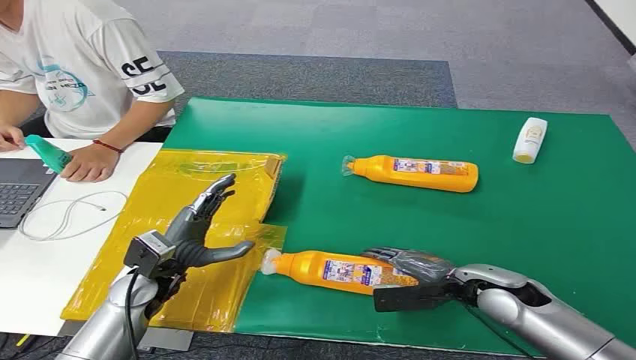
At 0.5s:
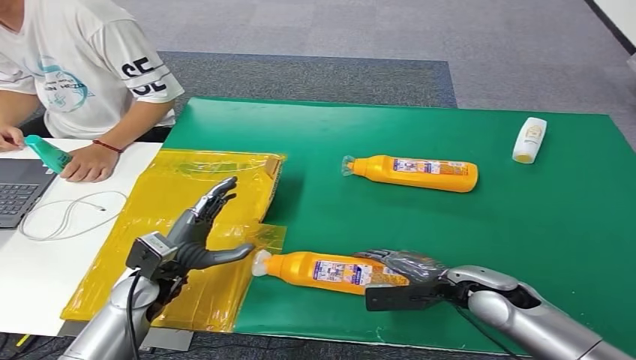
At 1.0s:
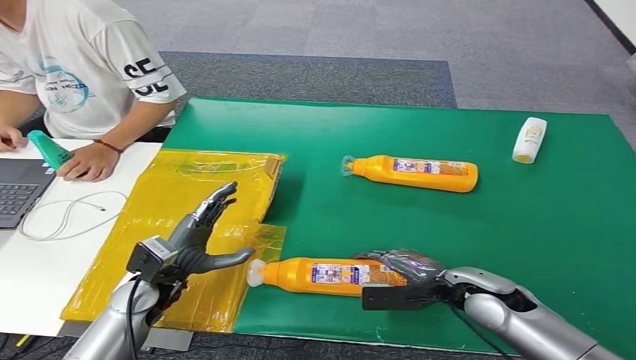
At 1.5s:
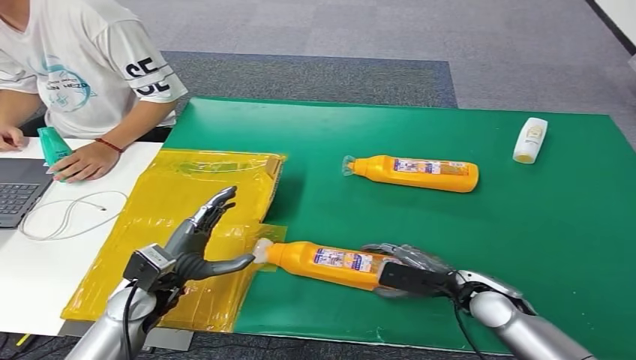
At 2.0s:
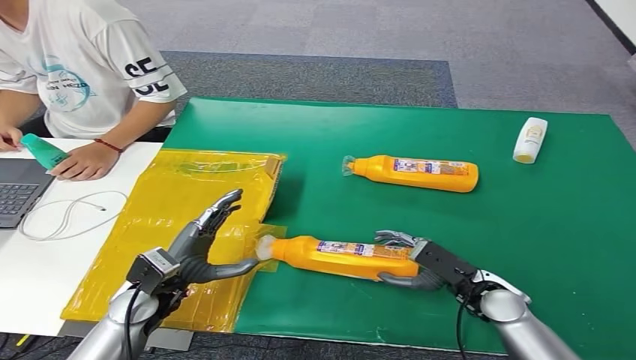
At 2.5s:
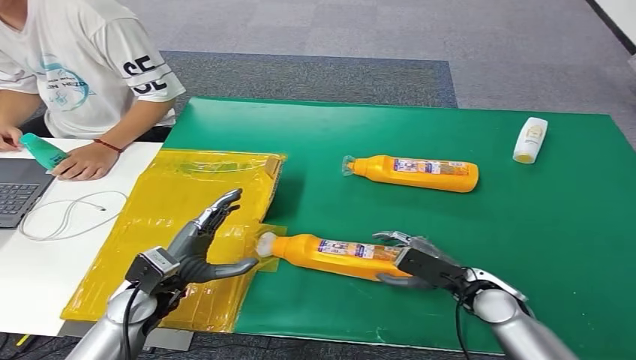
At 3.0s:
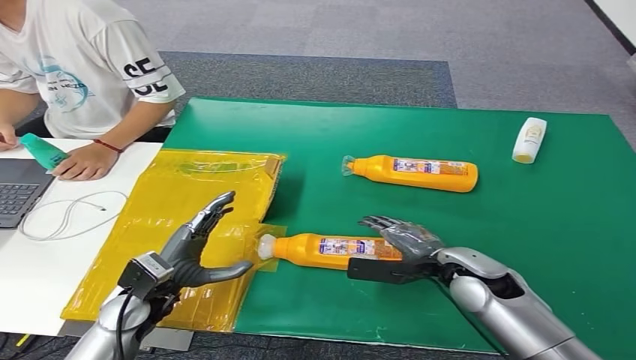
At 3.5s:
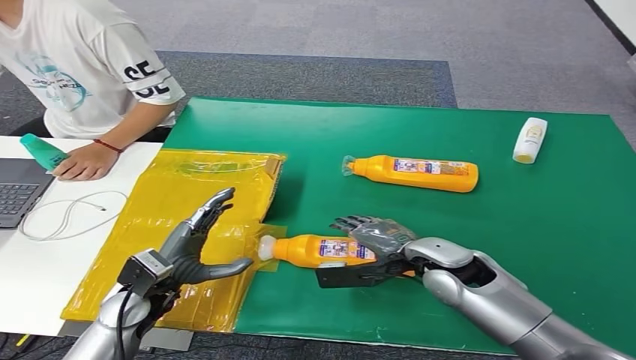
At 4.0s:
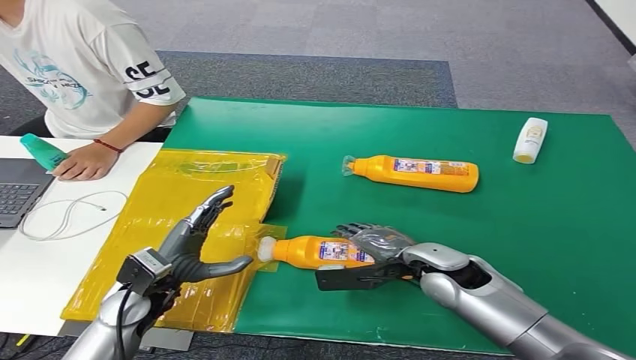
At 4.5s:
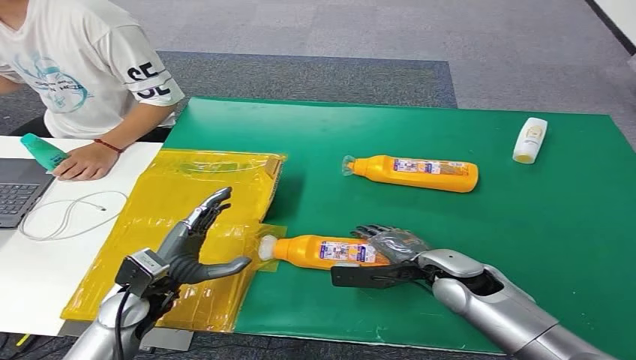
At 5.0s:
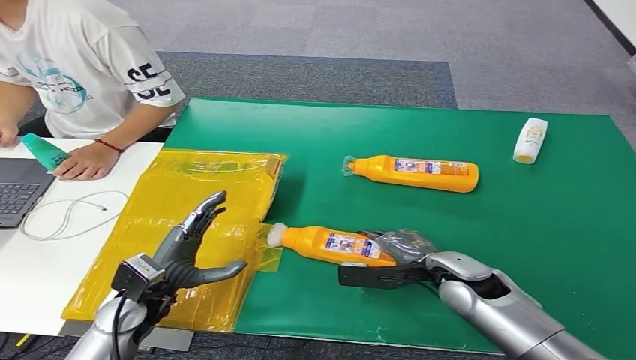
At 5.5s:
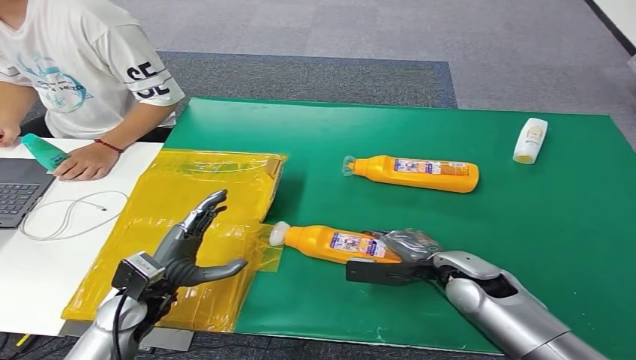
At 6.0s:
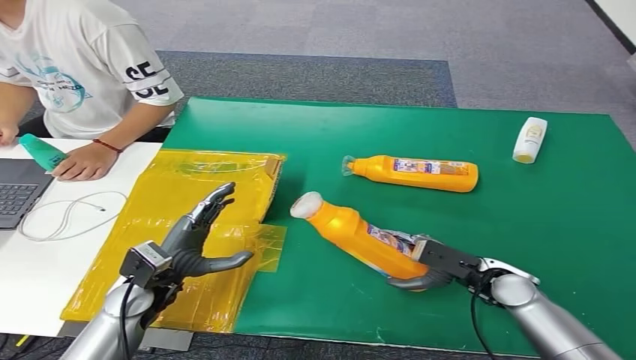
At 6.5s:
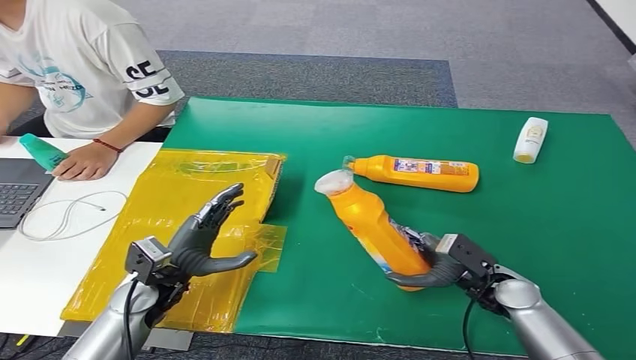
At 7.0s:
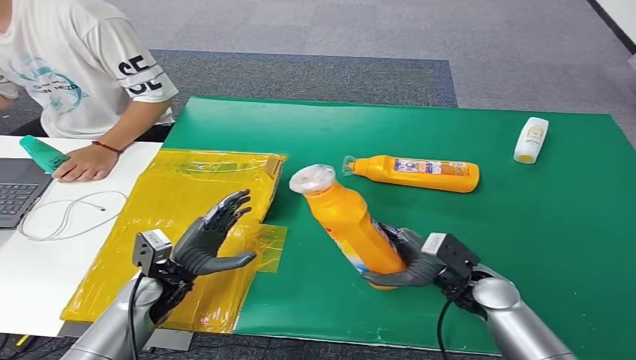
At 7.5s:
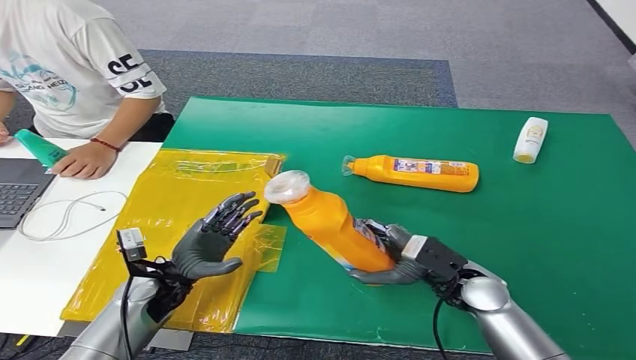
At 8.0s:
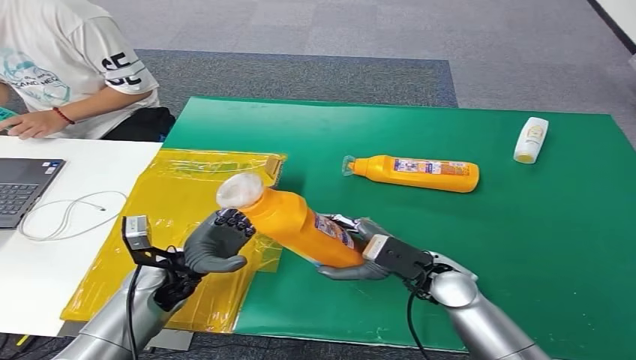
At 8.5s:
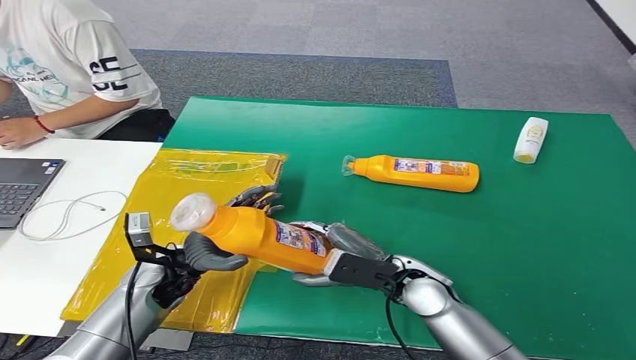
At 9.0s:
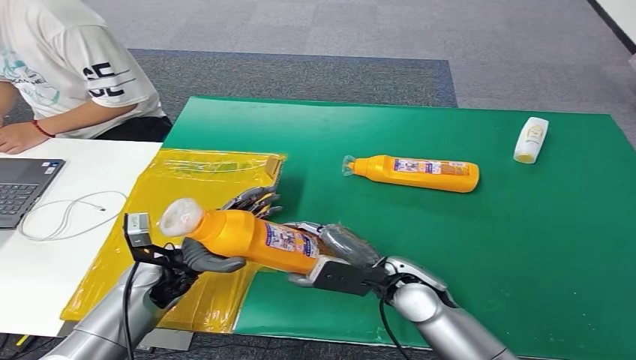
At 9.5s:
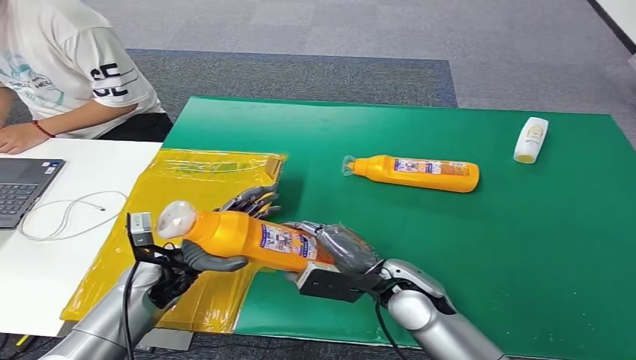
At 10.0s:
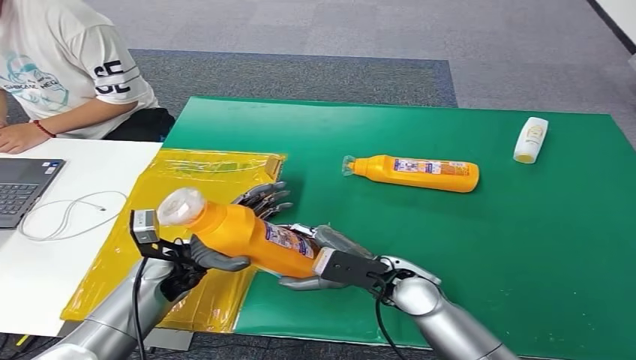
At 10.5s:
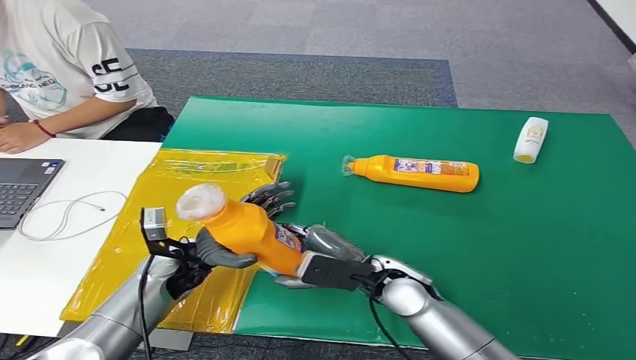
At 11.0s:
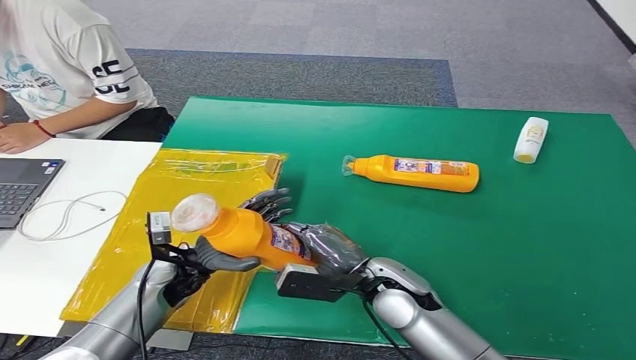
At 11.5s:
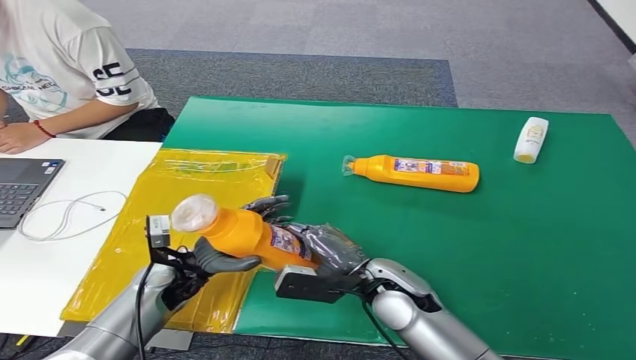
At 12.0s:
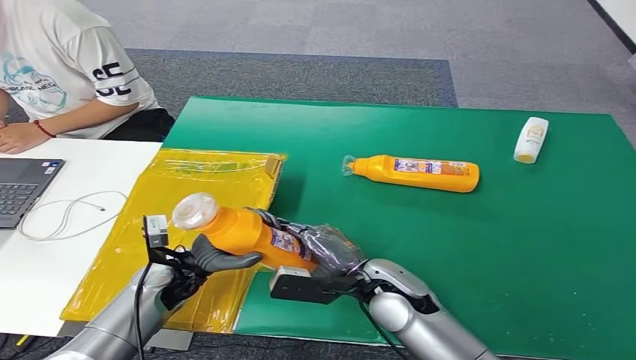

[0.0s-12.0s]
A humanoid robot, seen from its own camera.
Step, 0.0s to 7.5s: Pick up the bottle from the table.
2.0s to 4.0s: The right hand heads to the left and upward, covering roughly 10 cm.
4.0s to 6.0s: The right hand moves to the right, about 10 cm.
8.0s to 10.0s: The right hand travels to the left by approximately 5 cm.

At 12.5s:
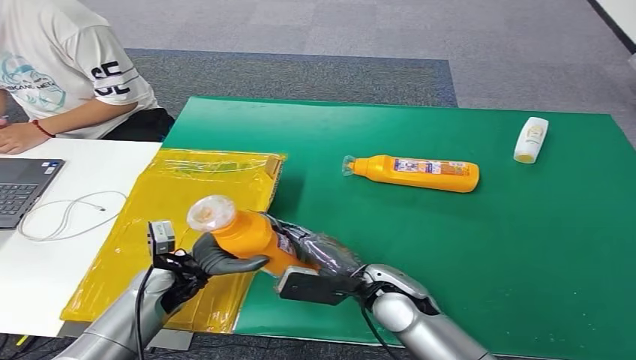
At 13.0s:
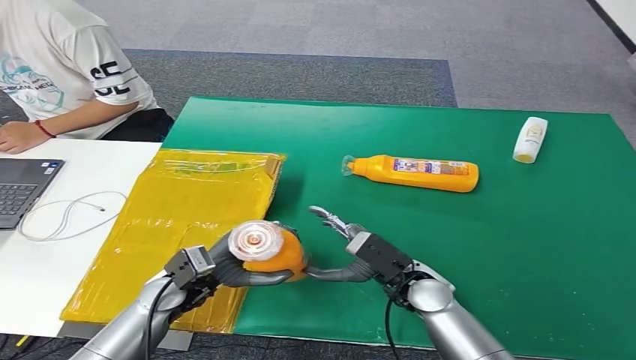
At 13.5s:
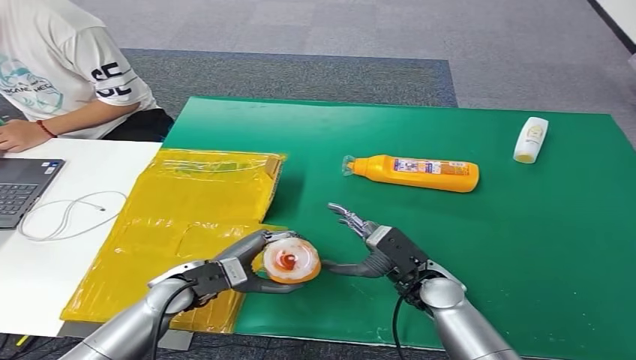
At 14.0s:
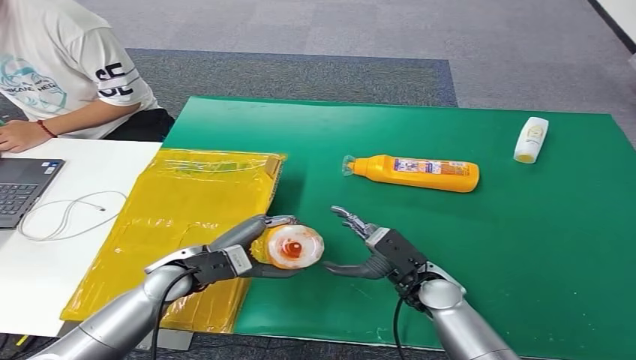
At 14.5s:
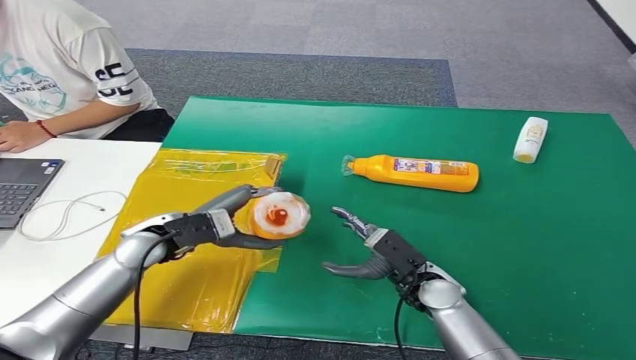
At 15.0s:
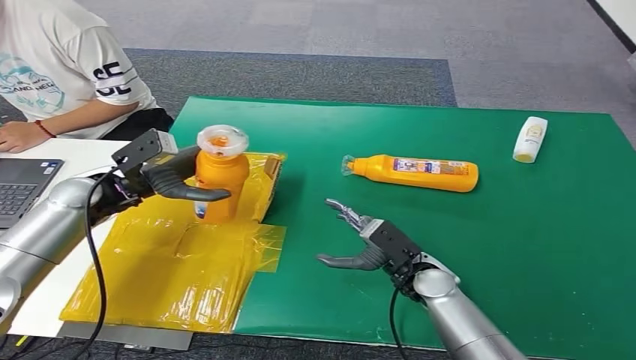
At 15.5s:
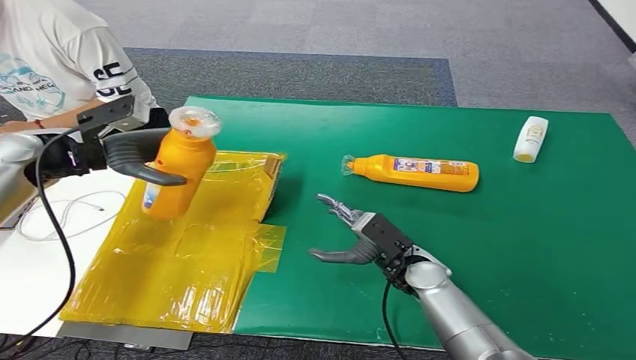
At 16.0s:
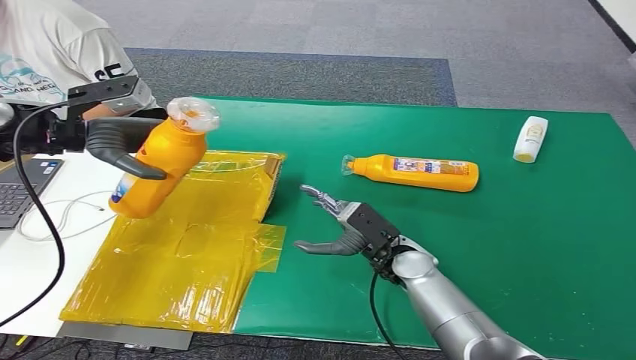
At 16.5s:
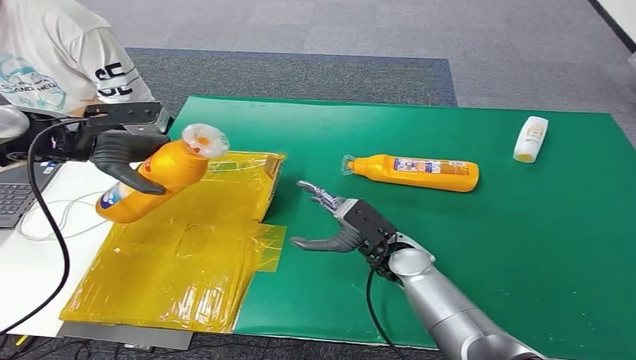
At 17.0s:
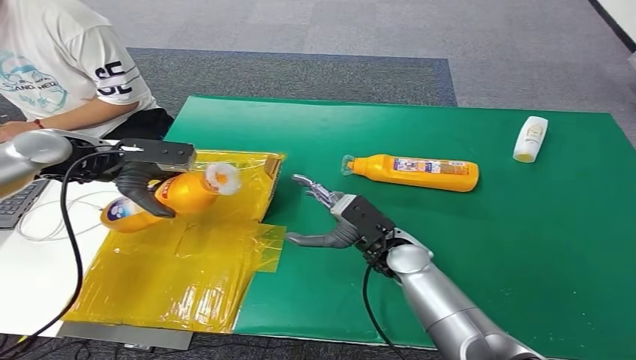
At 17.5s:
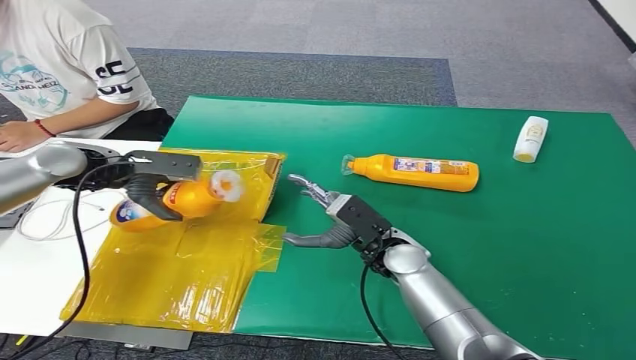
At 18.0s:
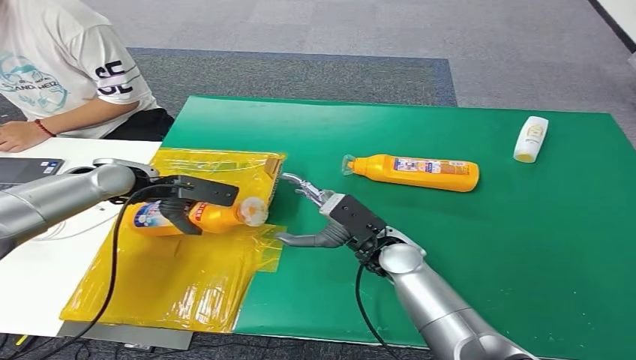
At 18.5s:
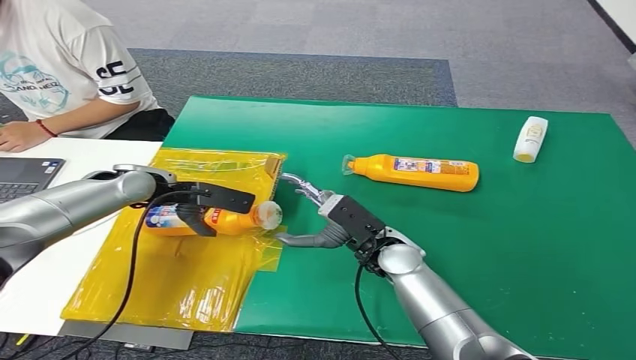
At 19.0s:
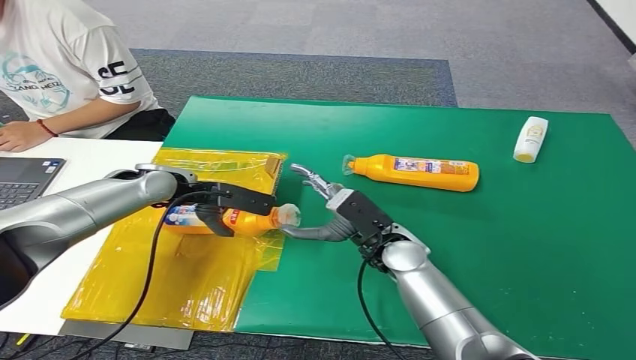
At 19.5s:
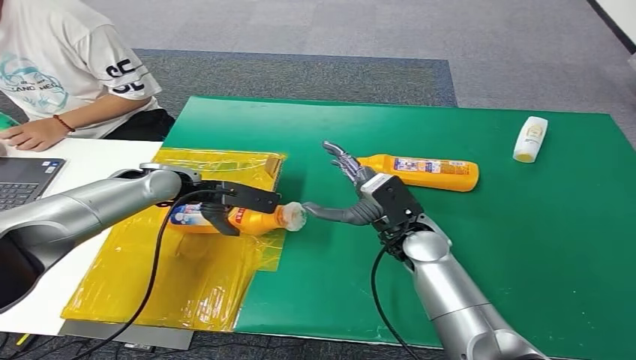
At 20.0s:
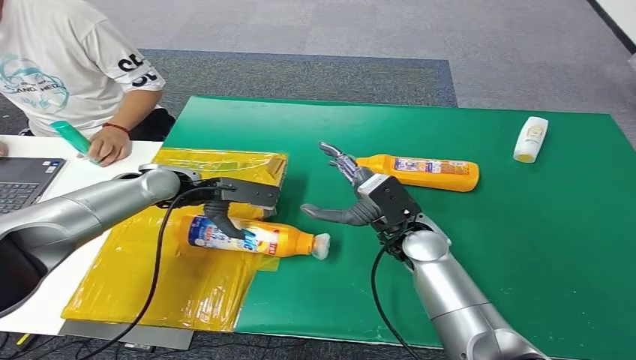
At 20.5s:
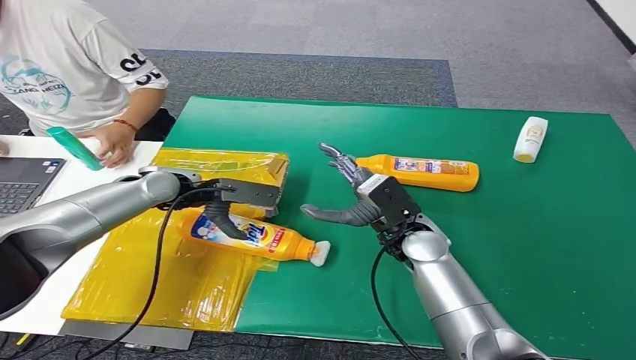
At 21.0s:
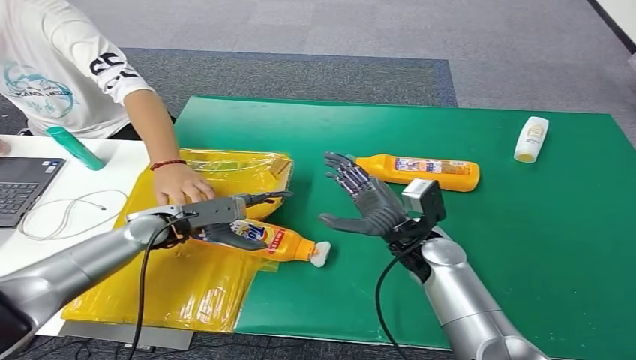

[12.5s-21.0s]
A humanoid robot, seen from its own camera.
Step, 12.5s to 21.0s: Turn the bottle to the front side.
12.5s to 14.5s: The right hand heads to the right and downward, covering roughly 10 cm. Meanwhile the left hand shifts about 10 cm upward.
